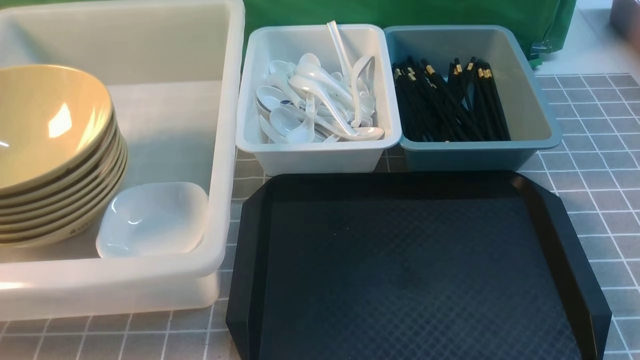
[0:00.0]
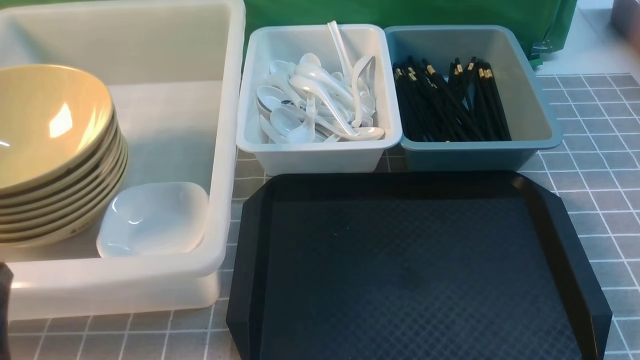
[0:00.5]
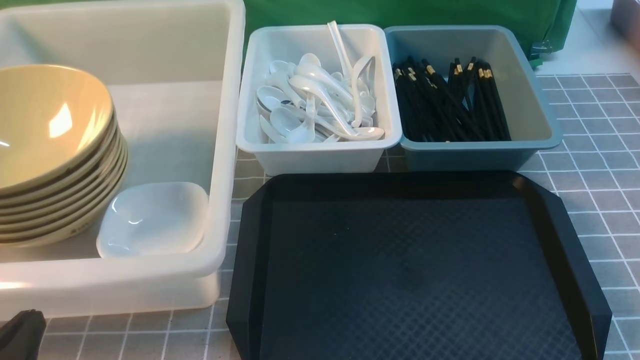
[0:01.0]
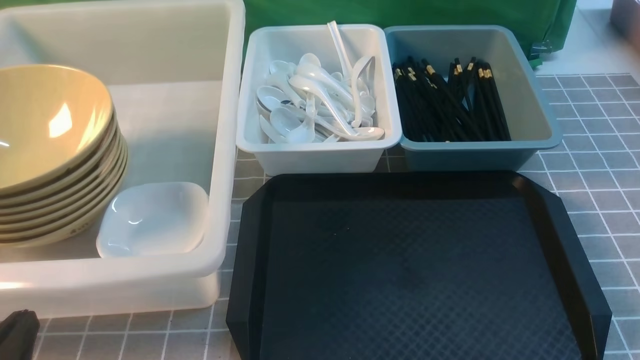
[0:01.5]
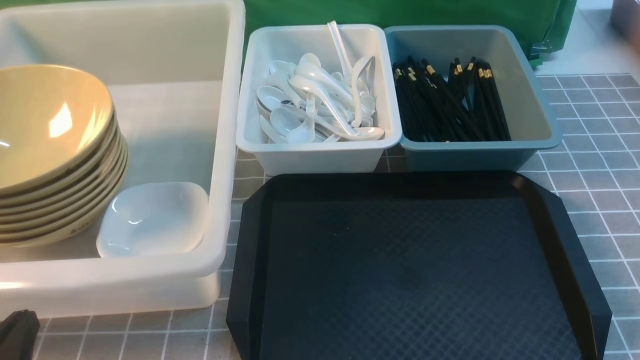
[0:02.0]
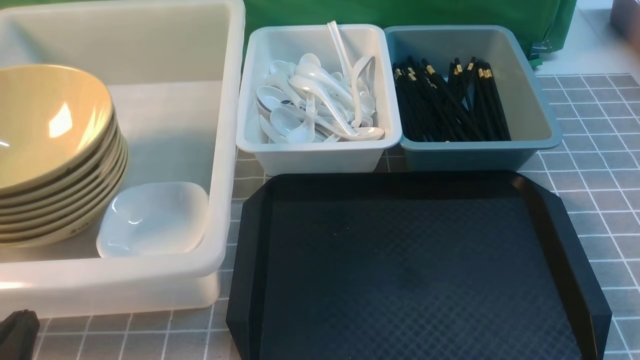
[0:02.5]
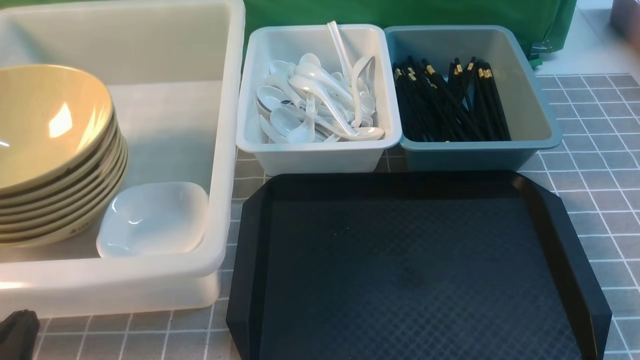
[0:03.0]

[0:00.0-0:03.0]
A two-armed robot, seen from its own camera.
Task of the whole recording: on grey table put chopsticks spoon bowls plates into blue grey white boxes.
0:00.0 to 0:01.5: The left gripper moves downward, about 10 cm.
0:01.5 to 0:03.0: The two grippers keep their place.

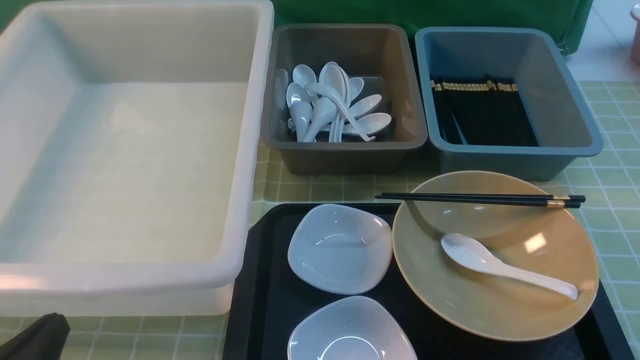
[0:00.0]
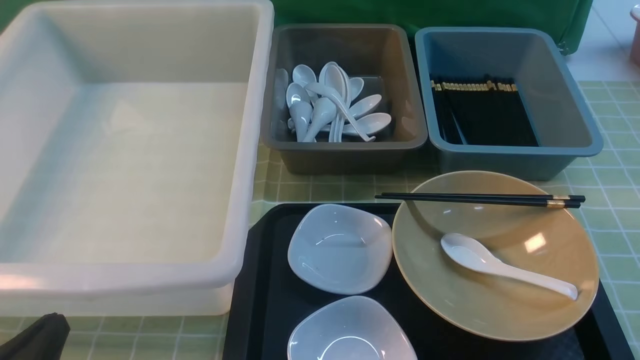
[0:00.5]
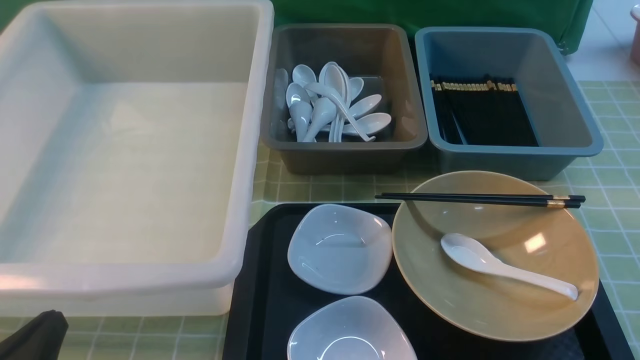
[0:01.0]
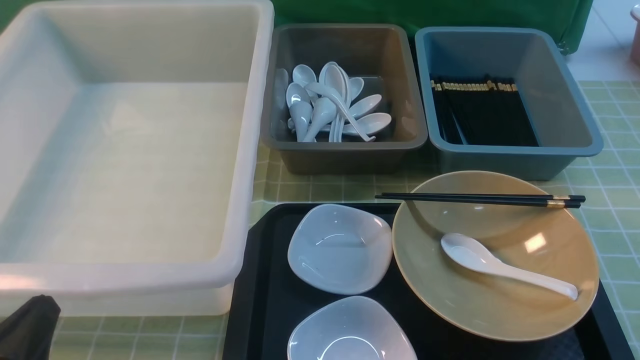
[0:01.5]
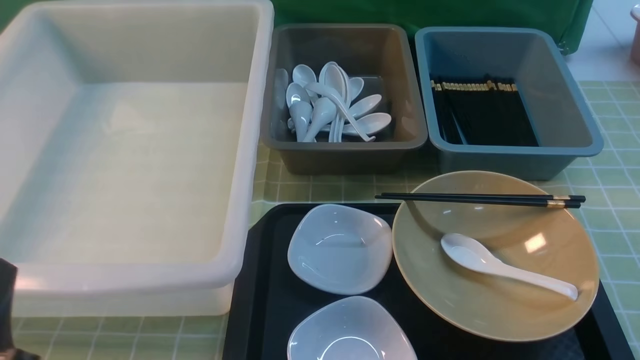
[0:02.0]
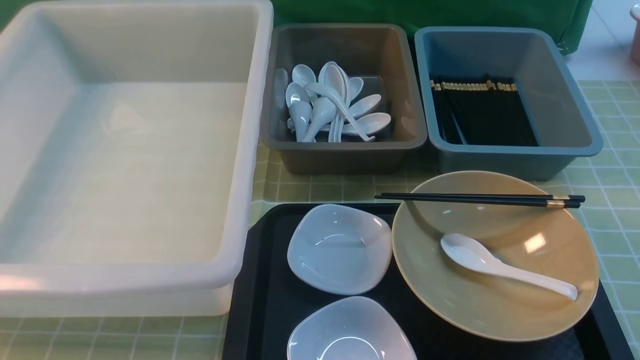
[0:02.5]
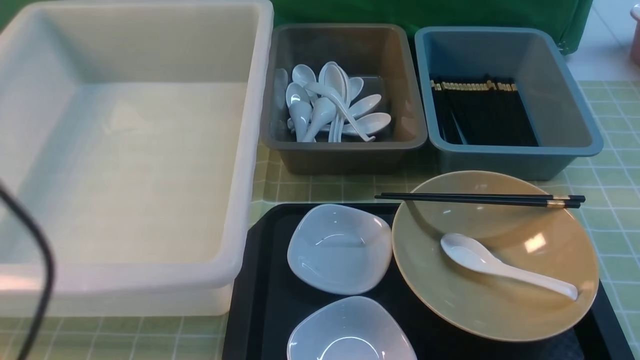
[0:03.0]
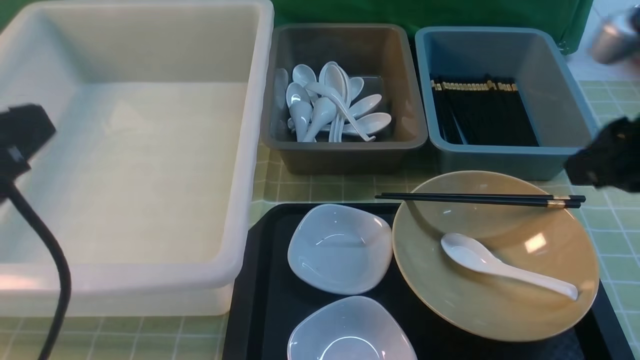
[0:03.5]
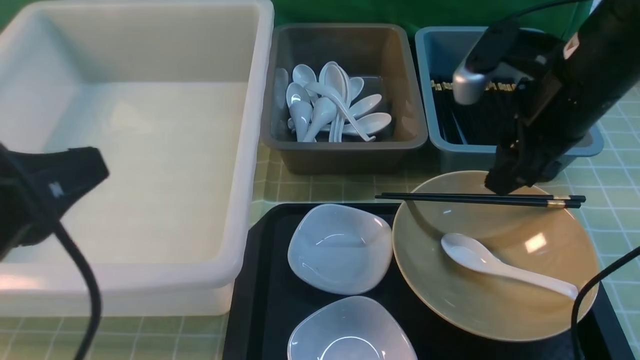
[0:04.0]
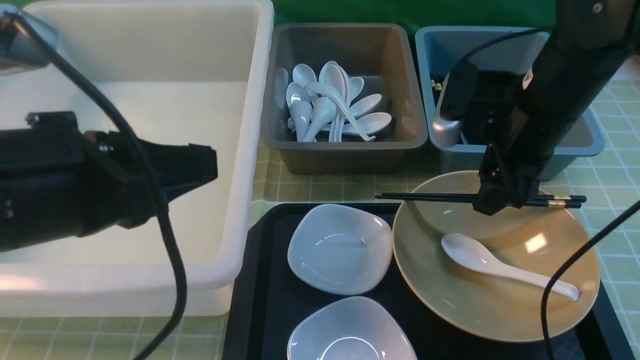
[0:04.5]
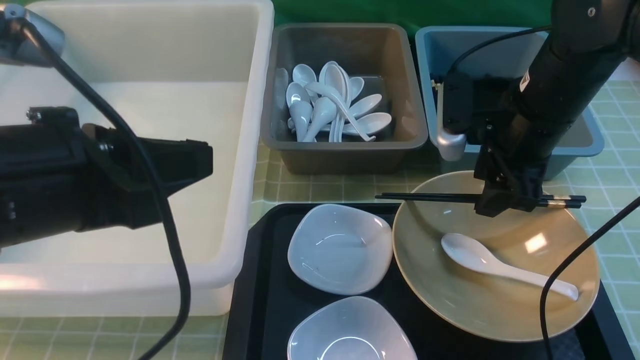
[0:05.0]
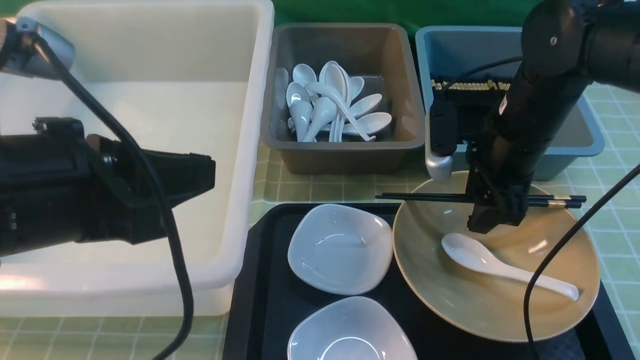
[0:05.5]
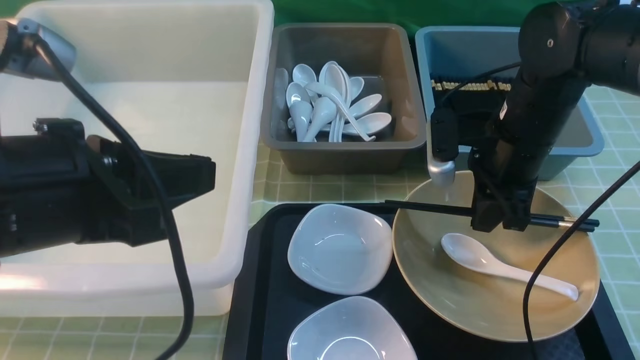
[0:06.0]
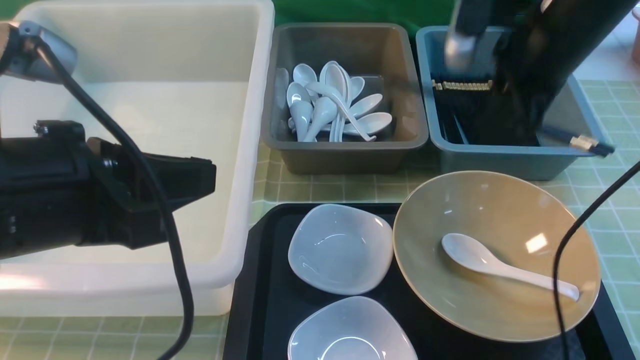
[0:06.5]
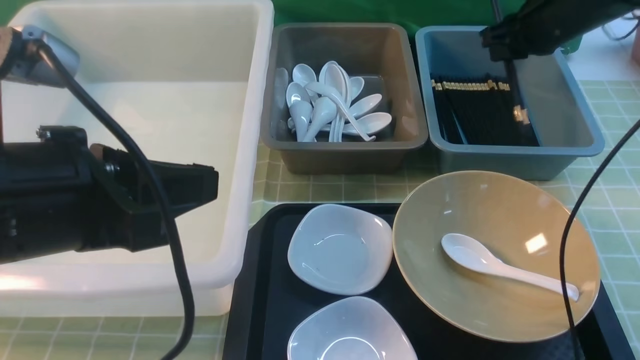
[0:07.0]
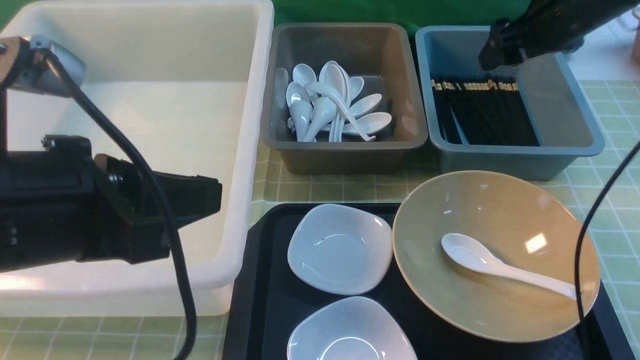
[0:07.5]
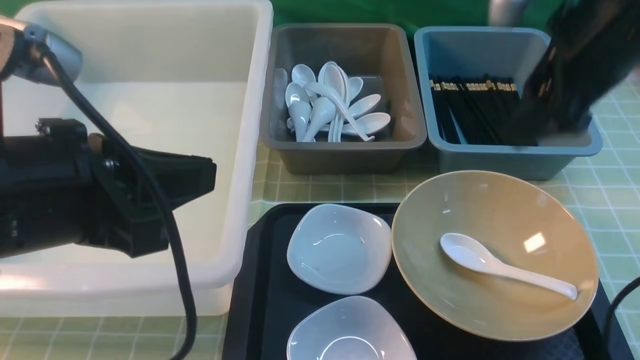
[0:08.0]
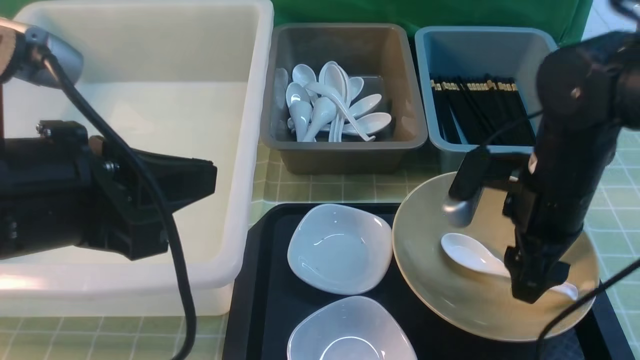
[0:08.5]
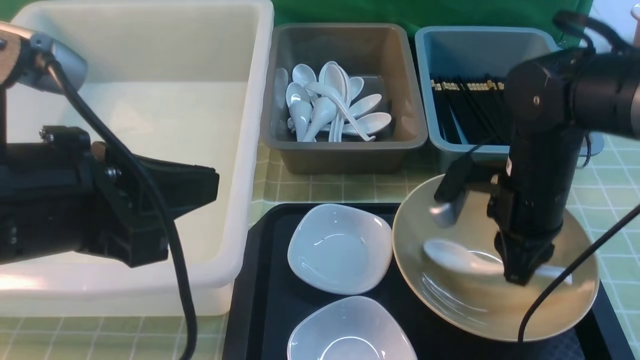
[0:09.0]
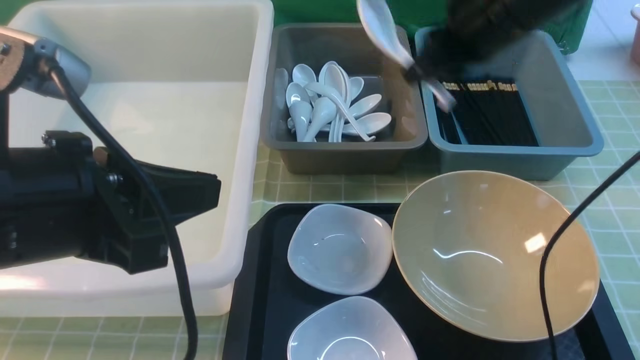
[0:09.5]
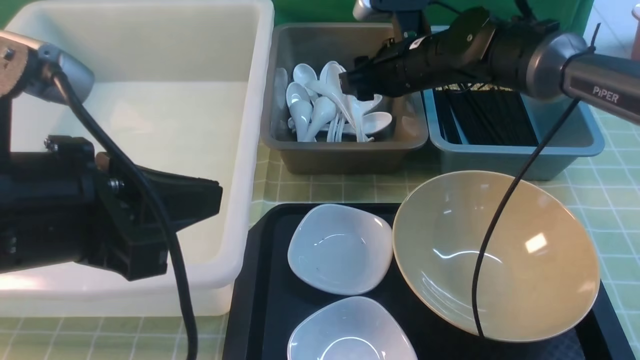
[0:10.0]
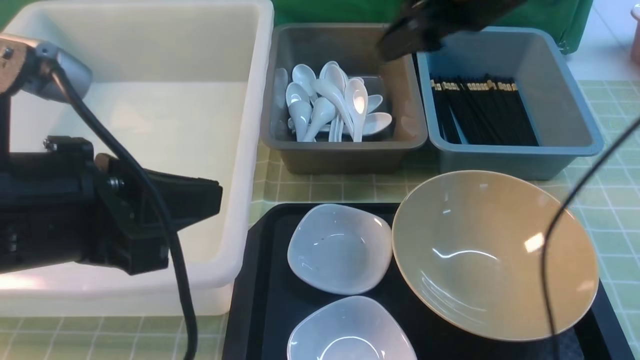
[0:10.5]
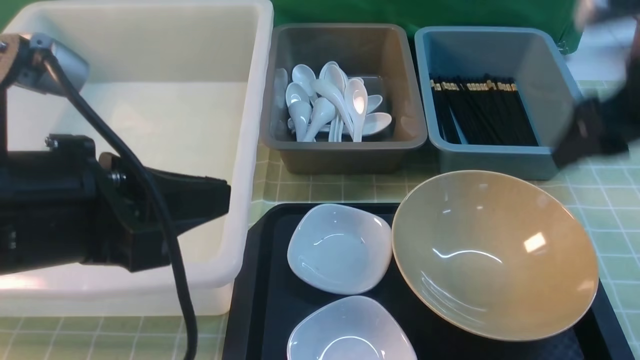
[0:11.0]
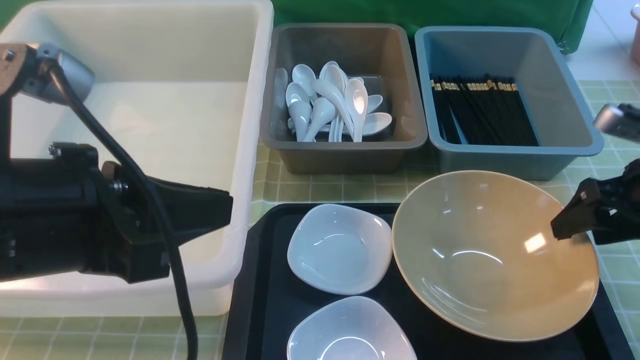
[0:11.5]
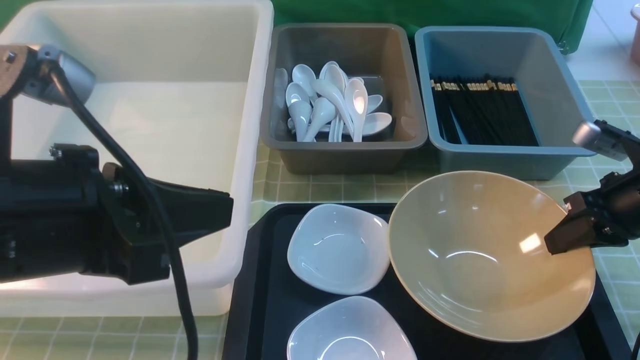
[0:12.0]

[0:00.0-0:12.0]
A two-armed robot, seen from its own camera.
Task of the whole recording: on green table put chopsticks spoon bowls plates into blue grey white boxes.
Step, 0:00.0 to 0:06.0: use the right arm to grab the chopsticks.
Step, 0:06.5 to 0:07.5: use the right arm to put the chopsticks into the small storage box on the right.
Step, 0:08.0 to 0:09.0: use the right arm to grab the soup spoon in the middle.
Step, 0:09.5 to 0:10.5: use the right arm to put the soup spoon into the small storage box in the middle.
0:02.0 to 0:04.0: The left gripper is displaced upward and forward by about 15 cm. Meanwhile the right gripper moves forward and to the left, about 30 cm.
0:04.0 to 0:06.0: The right gripper heads downward, covering about 10 cm, and closes up.
0:06.0 to 0:08.0: The right gripper heads upward, covering about 10 cm, goes forward and returns, about 10 cm each way, and opens.
0:08.0 to 0:10.0: The right gripper moves forward, downward and to the left, about 20 cm, and closes, then opens again.
0:10.0 to 0:12.0: The right gripper travels to the right and backward by about 25 cm, and closes.

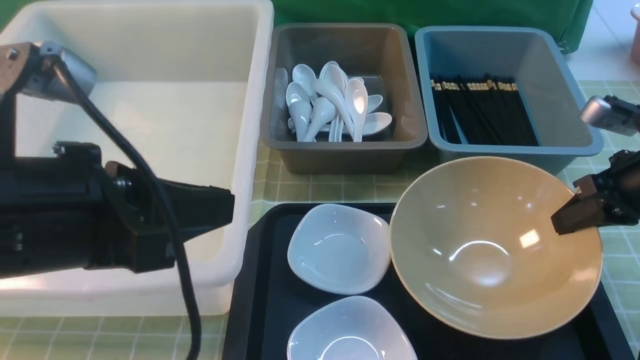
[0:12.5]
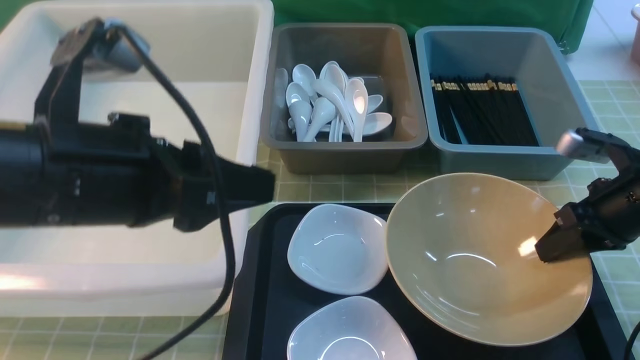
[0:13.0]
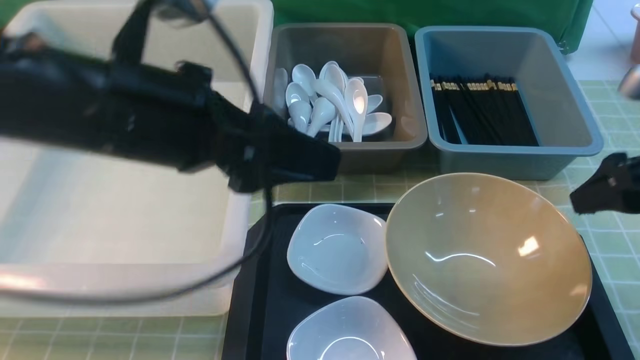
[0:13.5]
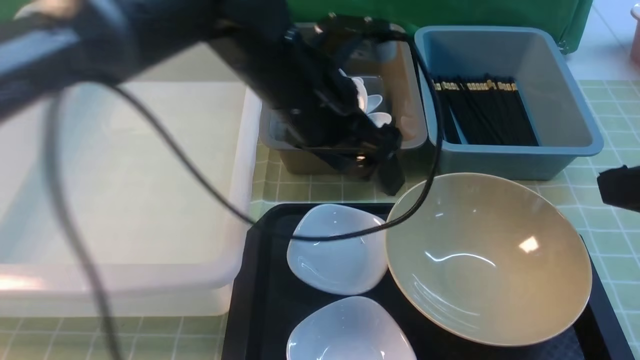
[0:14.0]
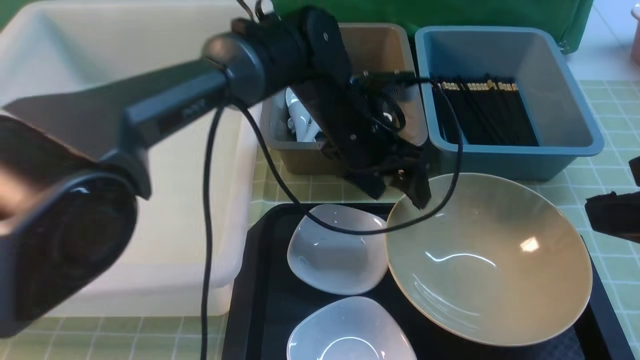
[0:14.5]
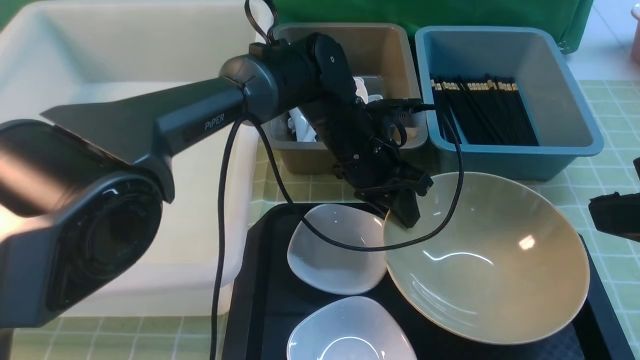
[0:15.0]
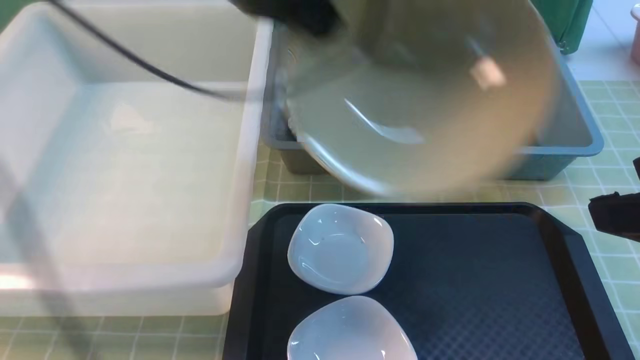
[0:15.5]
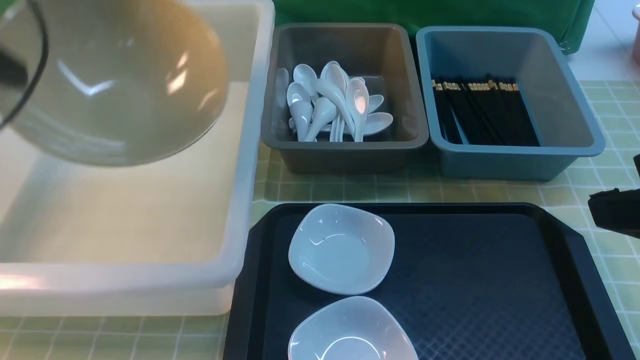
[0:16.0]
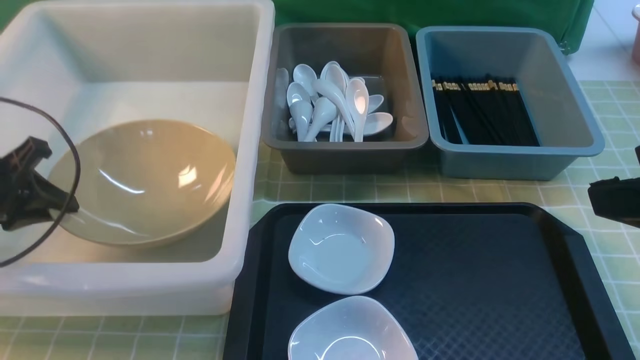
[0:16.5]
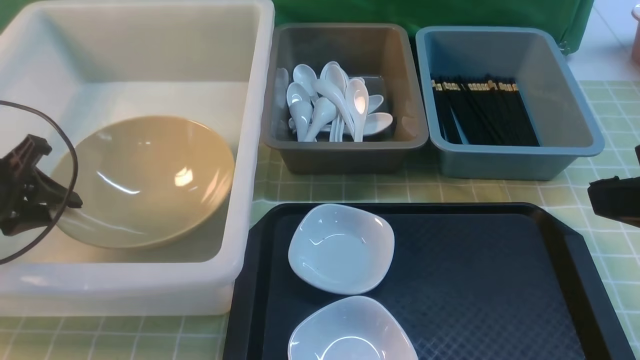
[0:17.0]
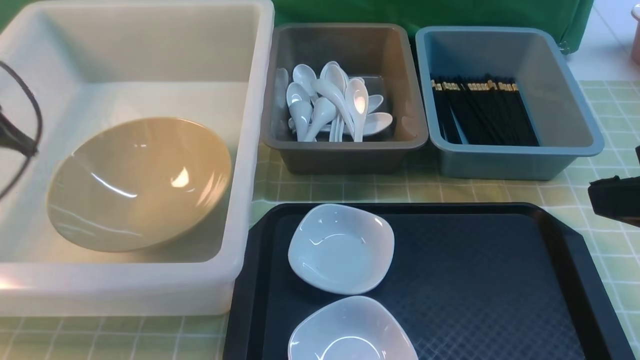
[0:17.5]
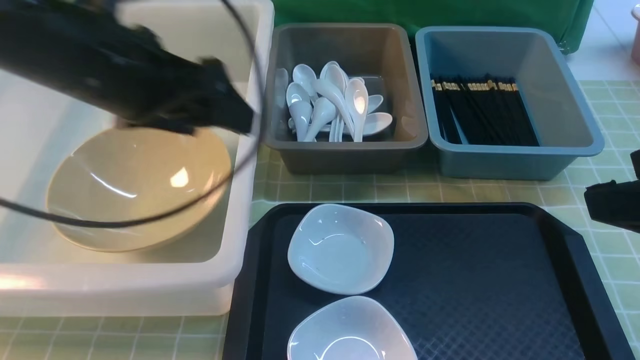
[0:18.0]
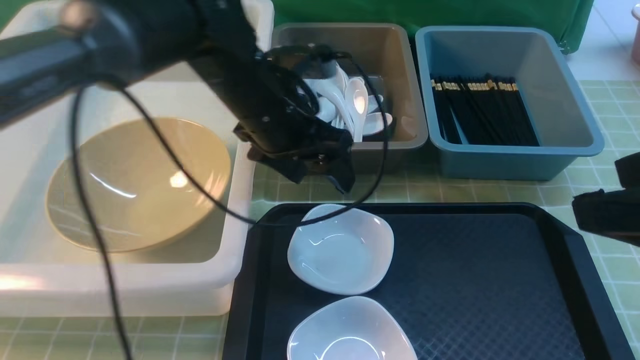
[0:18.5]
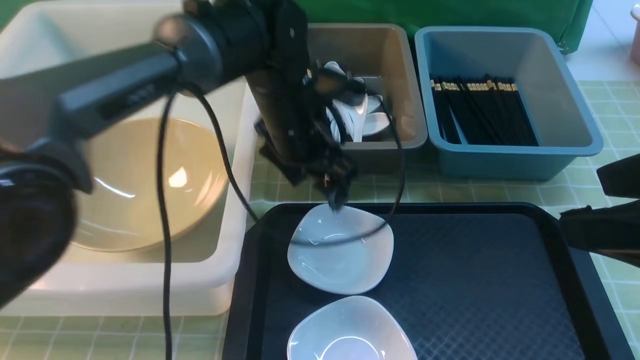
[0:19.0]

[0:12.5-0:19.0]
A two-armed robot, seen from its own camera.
Task of the whole recording: on green table put chopsticks spoon bowls plates into blue grey white boxes.
Step, 0:12.5 to 0:15.0: use the left arm to grab the yellow noodle bowl on the left.
Step, 0:15.5 to 0:17.0: use the left arm to put the noodle bowl into the large storage box on the left.
0:12.5 to 0:14.5: The left gripper heads forward, to the right and downward, covering about 30 cm, and opens its fingers. Meanwhile the right gripper heads upward, backward and to the left, covering roughly 25 cm, and opens up.
0:14.5 to 0:17.0: The left gripper shifts roughly 40 cm to the left, and closes up.
0:17.0 to 0:19.0: The left gripper shifts about 35 cm to the right, and opens its fingers.
